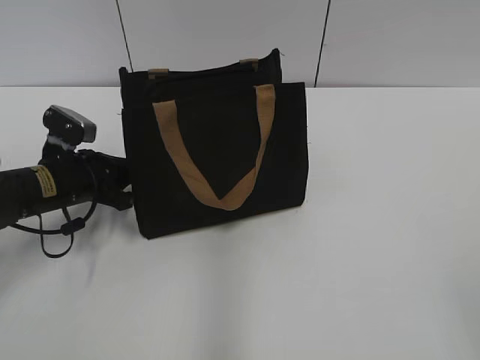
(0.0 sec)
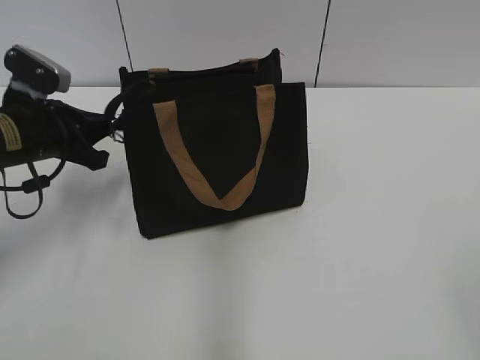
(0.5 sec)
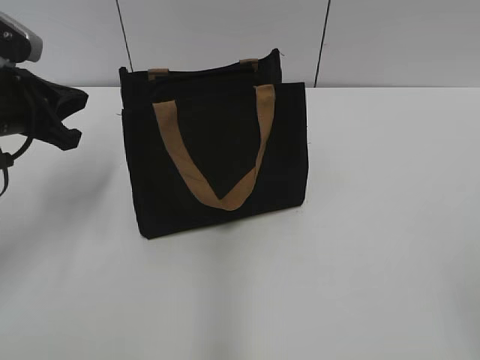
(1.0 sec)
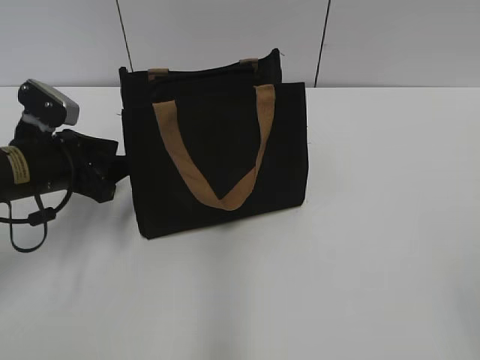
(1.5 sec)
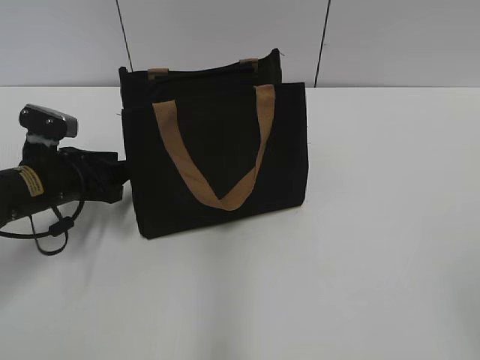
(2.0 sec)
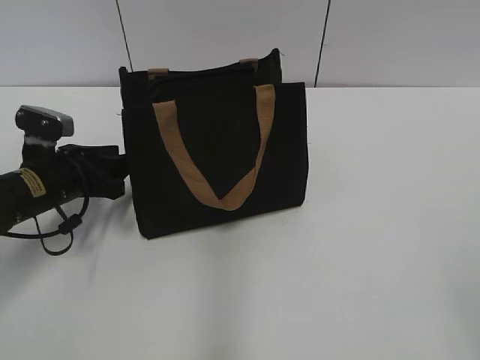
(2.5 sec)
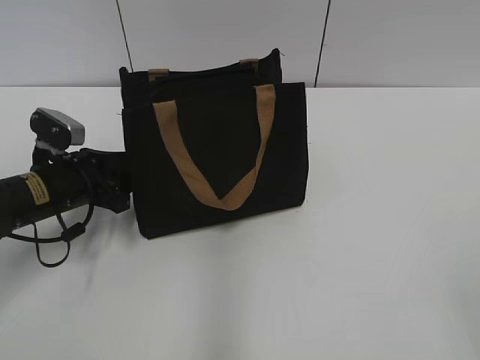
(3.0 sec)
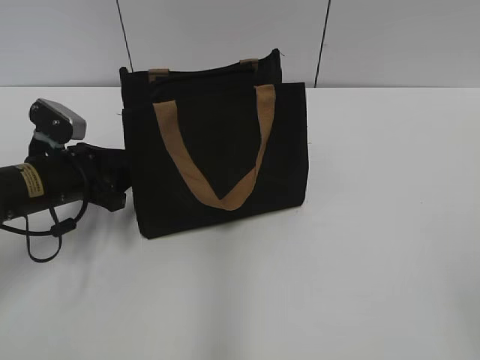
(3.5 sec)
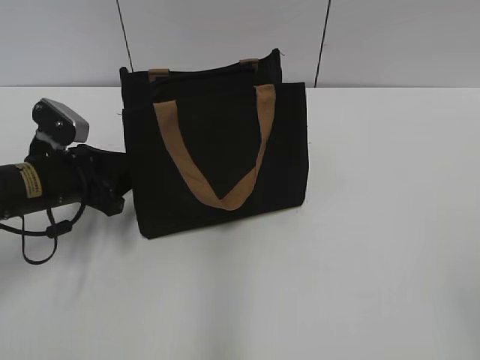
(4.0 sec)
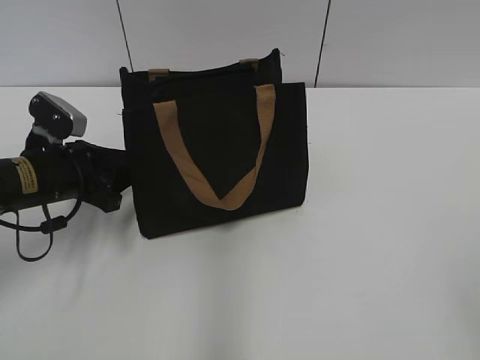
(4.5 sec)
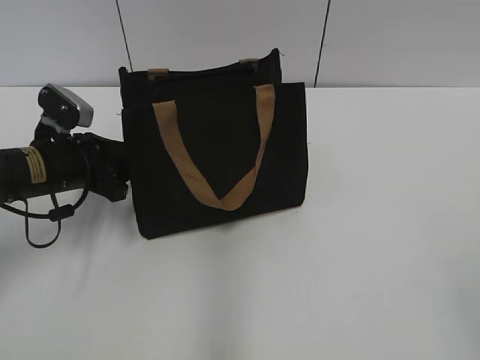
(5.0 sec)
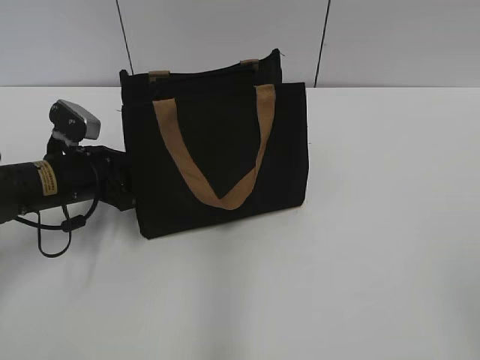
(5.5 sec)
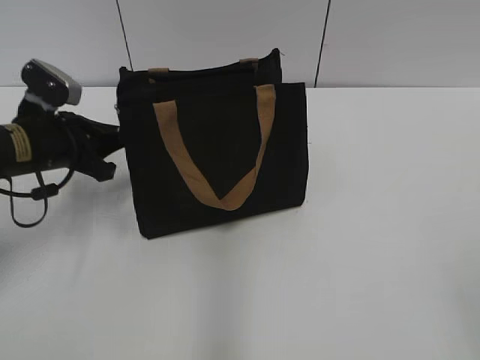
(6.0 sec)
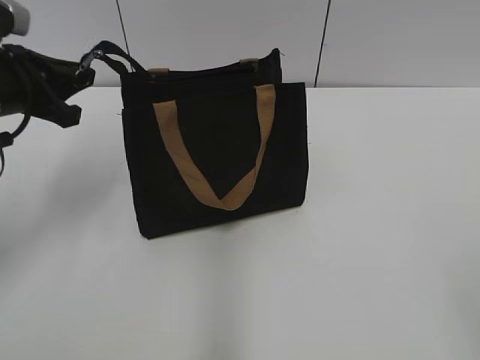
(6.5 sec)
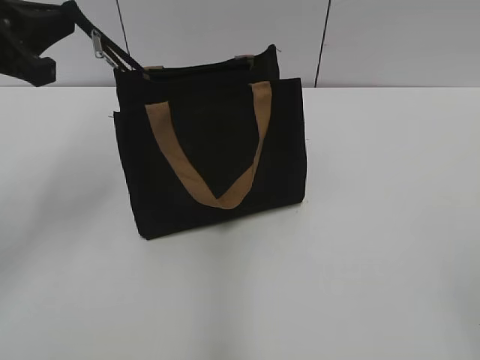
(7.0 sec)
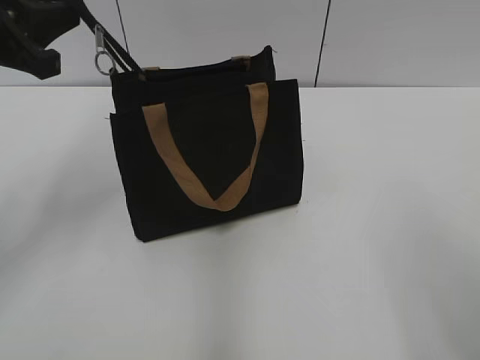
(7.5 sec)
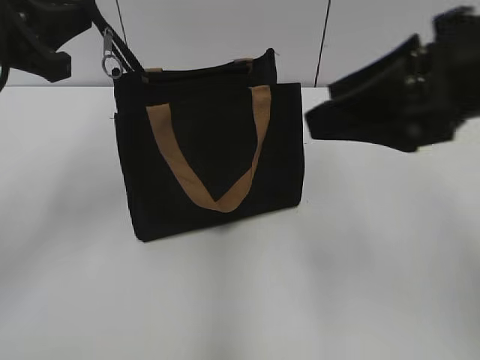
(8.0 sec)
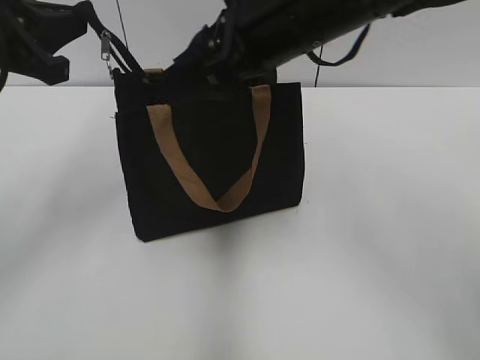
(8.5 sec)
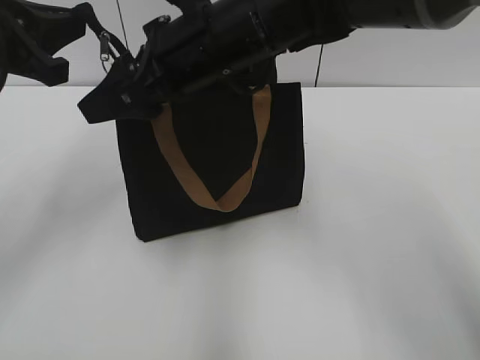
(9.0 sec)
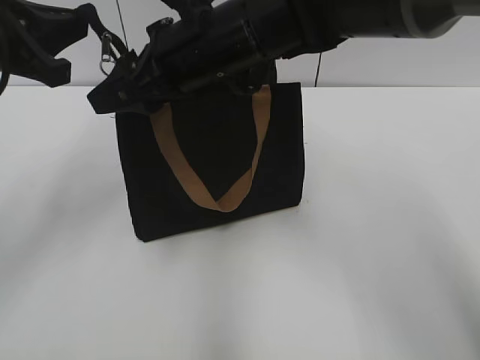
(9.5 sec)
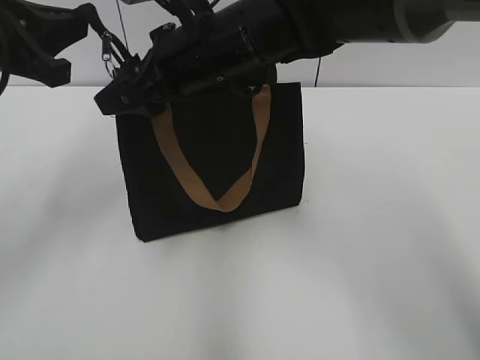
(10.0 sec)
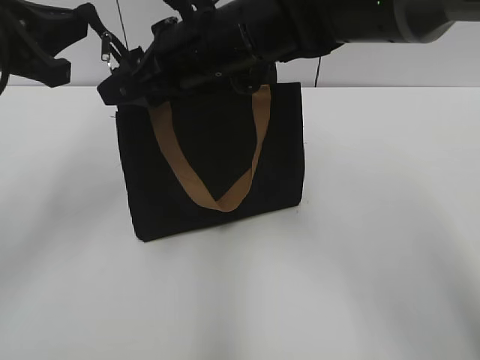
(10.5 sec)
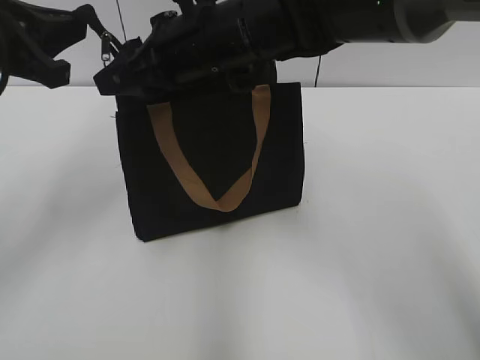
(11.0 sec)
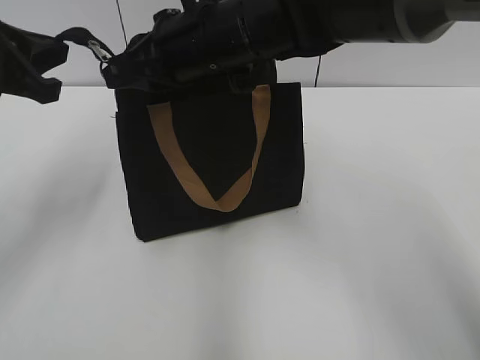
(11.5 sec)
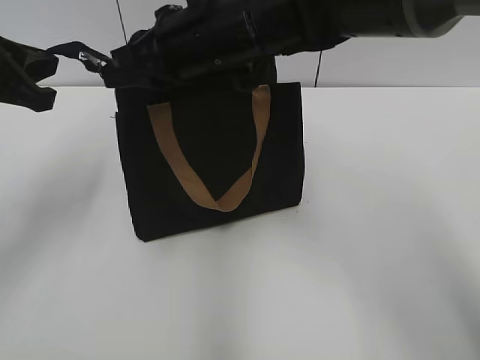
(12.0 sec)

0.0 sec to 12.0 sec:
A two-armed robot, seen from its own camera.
0.0 sec to 2.0 sec: The left gripper moves about 15 cm upward and comes back, and opens its fingers.
2.0 sec to 4.0 sec: The grippers make only small movements.
4.0 sec to 6.0 sec: The left gripper closes its fingers.
6.0 sec to 8.0 sec: The right gripper heads forward and to the left, covering approximately 25 cm. Meanwhile the left gripper heads upward, covering roughly 15 cm.
8.0 sec to 10.0 sec: The right gripper goes some 25 cm to the left and forward.
10.0 sec to 12.0 sec: The right gripper closes its fingers.

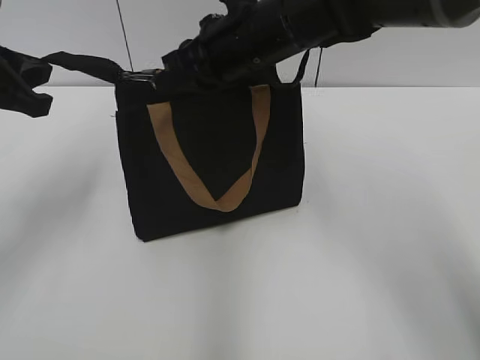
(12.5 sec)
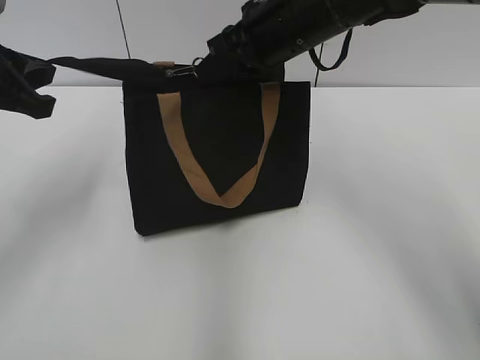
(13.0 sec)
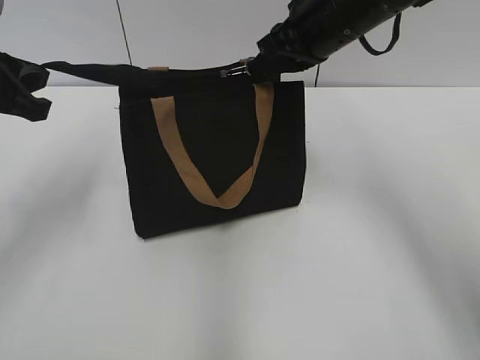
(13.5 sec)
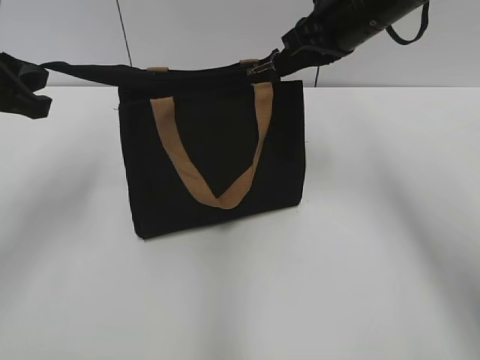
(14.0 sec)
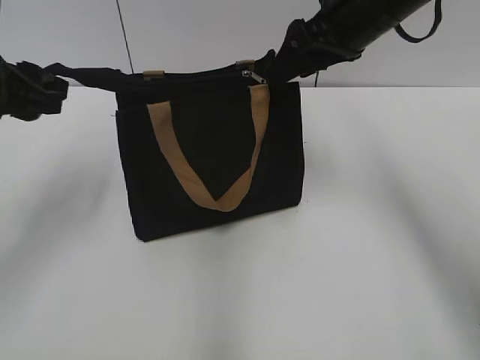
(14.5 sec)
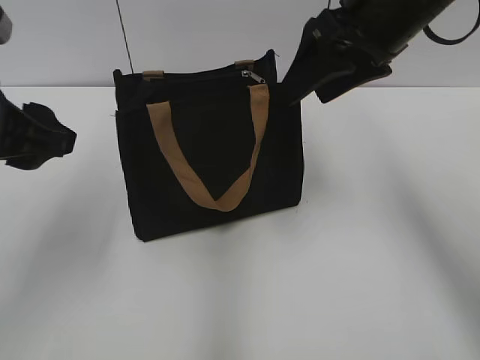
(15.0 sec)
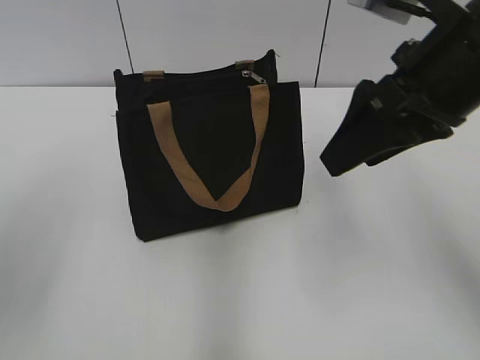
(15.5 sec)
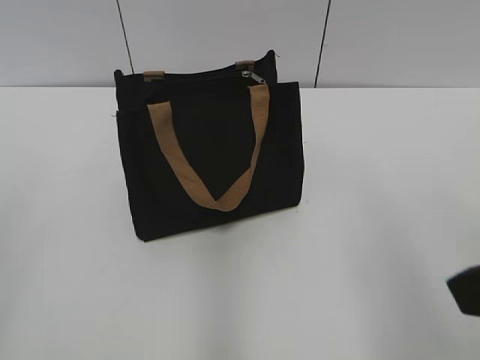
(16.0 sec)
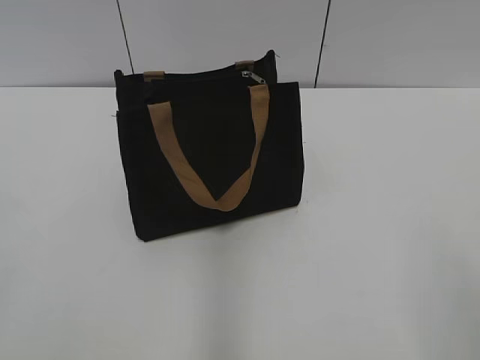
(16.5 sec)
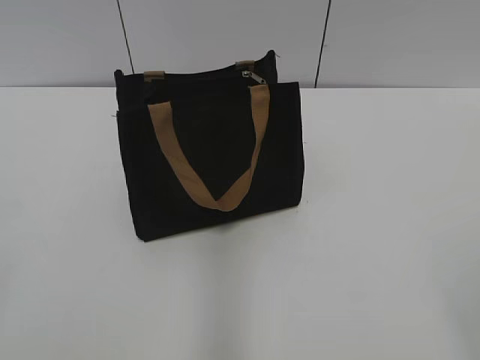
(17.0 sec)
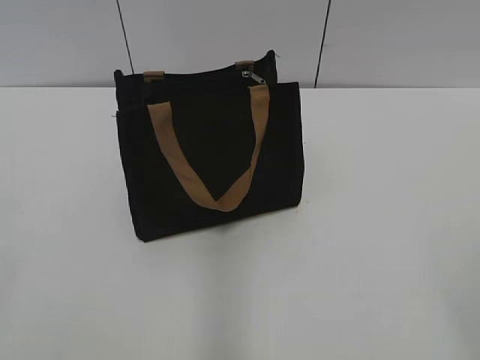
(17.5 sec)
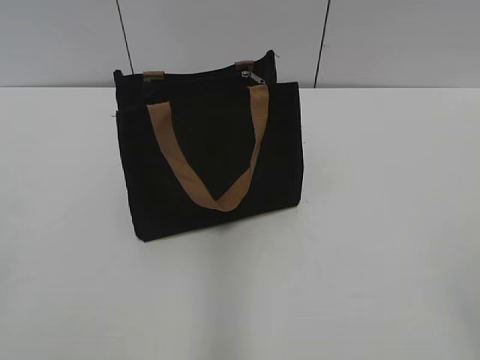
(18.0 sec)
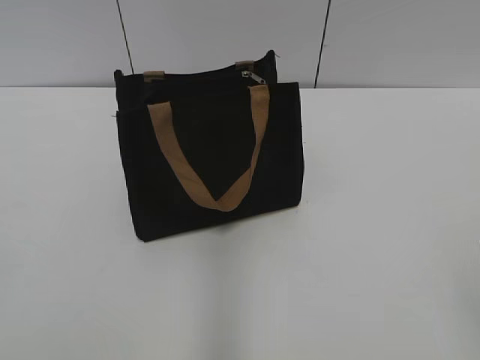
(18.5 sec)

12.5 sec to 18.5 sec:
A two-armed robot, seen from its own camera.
Step, 14.5 sec to 15.0 sec: Grab the zipper with your left hand.
12.5 sec to 14.5 sec: The left gripper opens its fingers; the right gripper moves to the right, some 10 cm, and opens up.
14.5 sec to 16.5 sec: The two grippers go some 30 cm backward.
